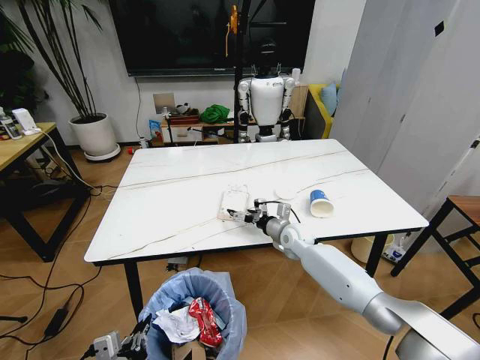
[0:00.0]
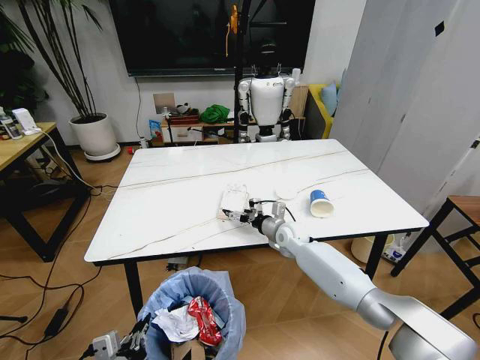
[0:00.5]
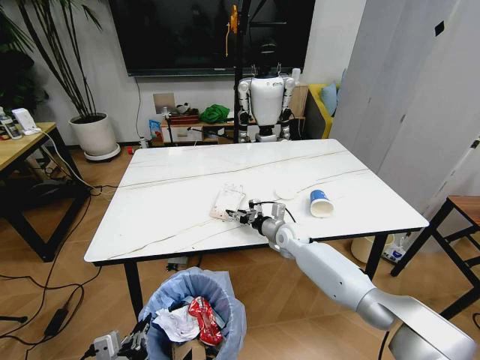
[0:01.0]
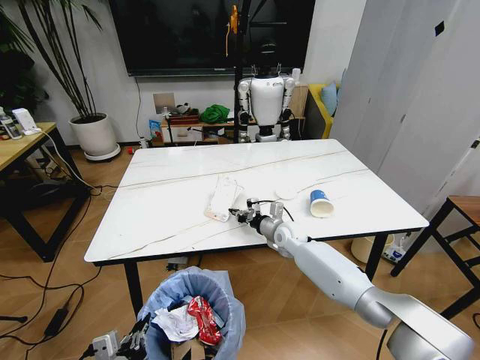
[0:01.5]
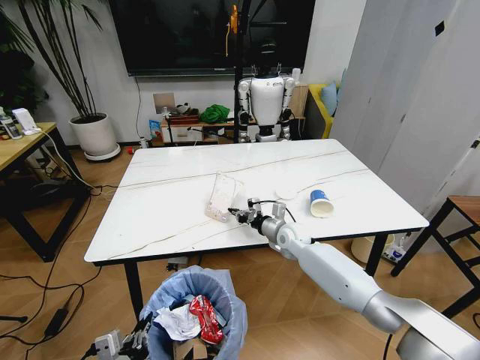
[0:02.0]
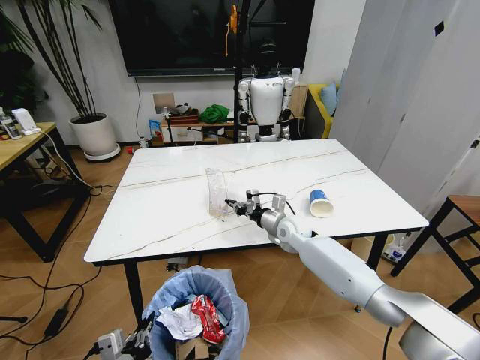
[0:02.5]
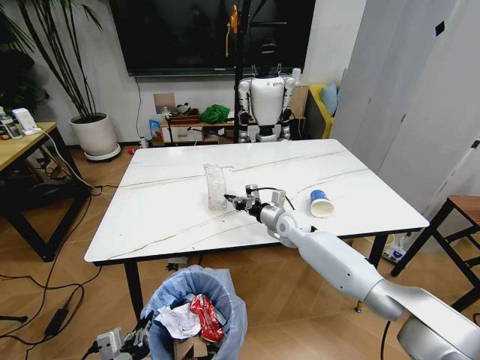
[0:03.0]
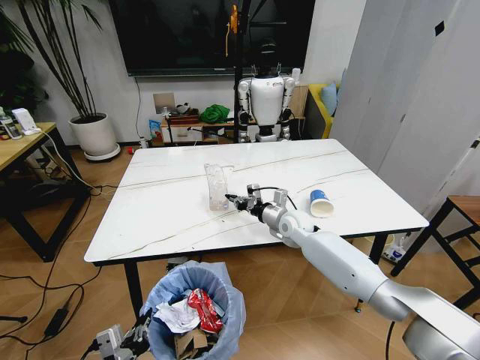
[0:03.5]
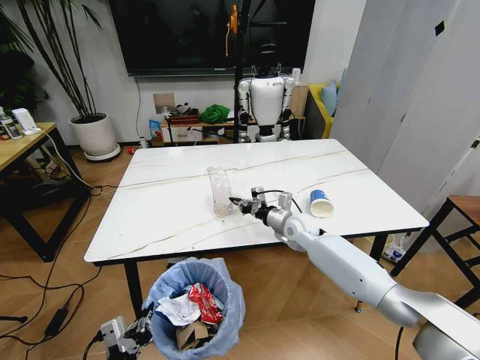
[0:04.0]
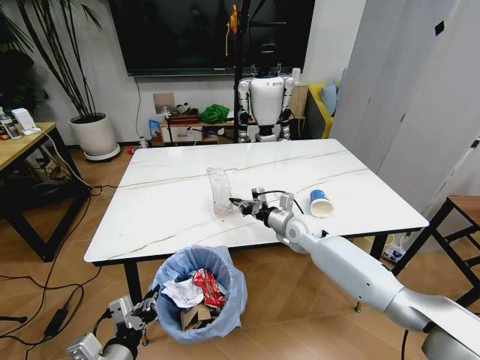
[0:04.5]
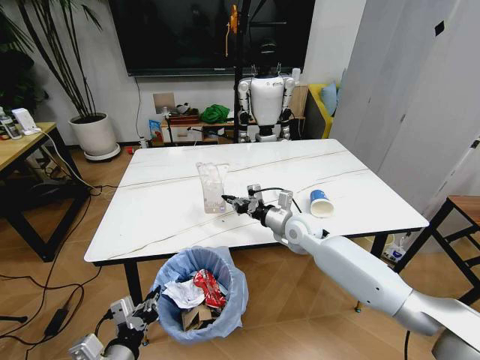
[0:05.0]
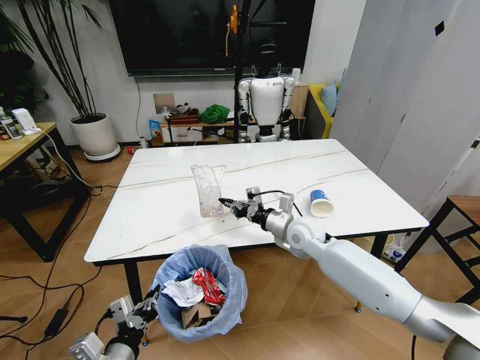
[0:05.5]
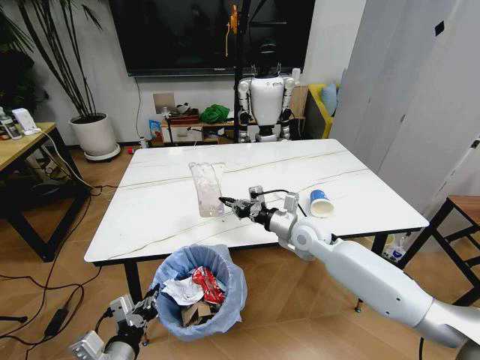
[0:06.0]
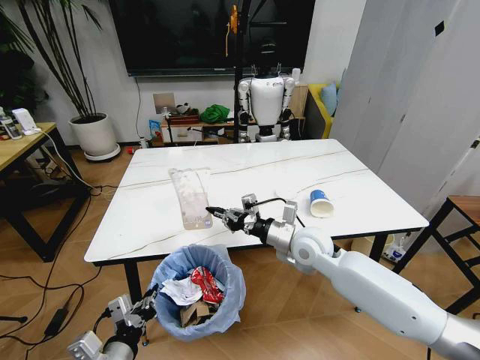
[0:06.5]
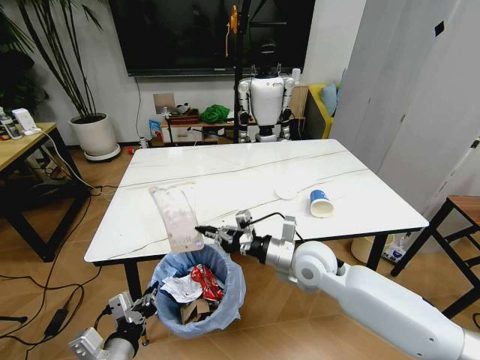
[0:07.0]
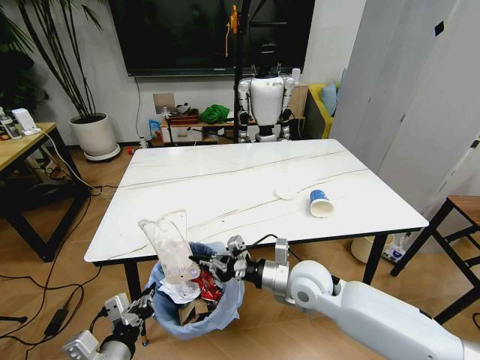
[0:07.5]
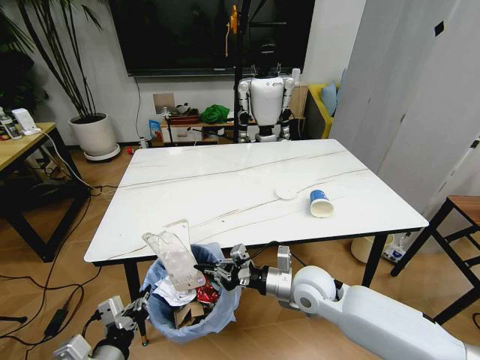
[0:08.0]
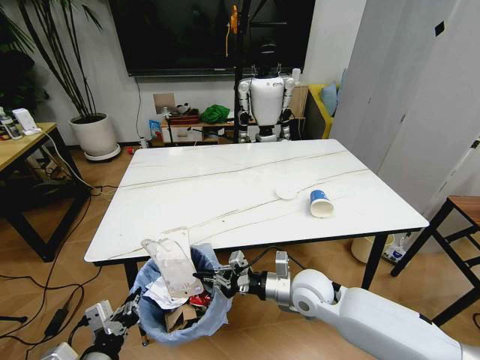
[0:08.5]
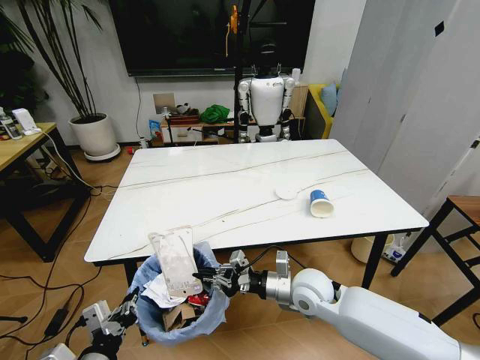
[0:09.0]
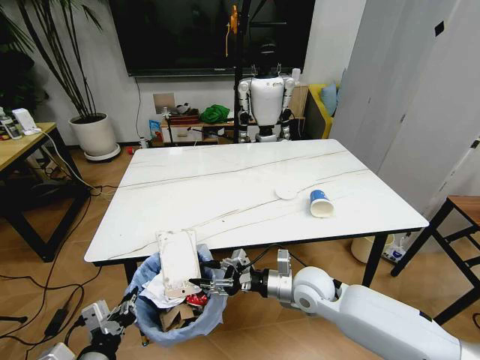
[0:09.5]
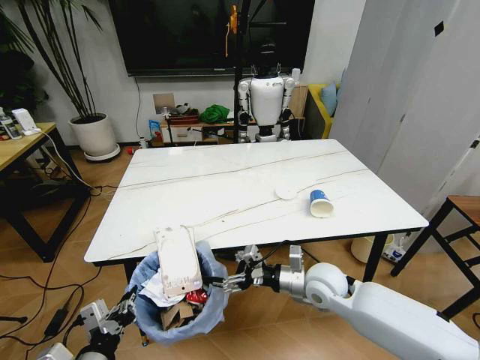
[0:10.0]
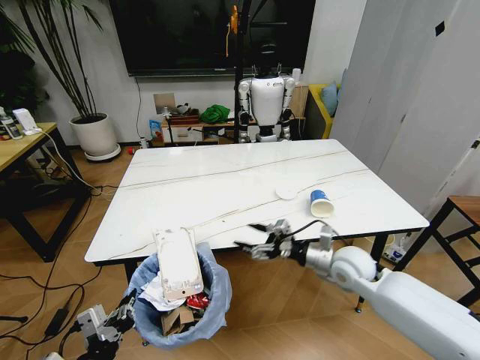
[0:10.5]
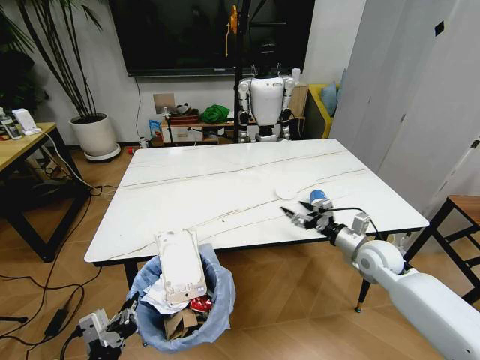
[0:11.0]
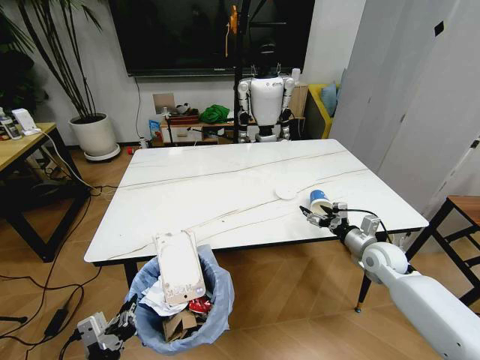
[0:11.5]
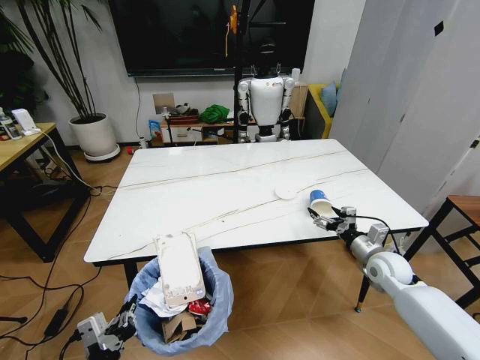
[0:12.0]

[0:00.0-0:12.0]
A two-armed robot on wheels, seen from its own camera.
Task of the whole recording: Pick up the trash bin and place the trash from the table into it.
0.0 to 2.0 s: The right gripper closes up.
2.0 to 4.0 s: The grippers stay close to where they were, moving slightly.
4.0 to 6.0 s: The right gripper is displaced backward by about 5 cm.
6.0 to 8.0 s: The right gripper heads backward, covering some 10 cm.
8.0 to 10.0 s: The right gripper opens.
10.0 to 12.0 s: The right gripper goes some 20 cm to the right.

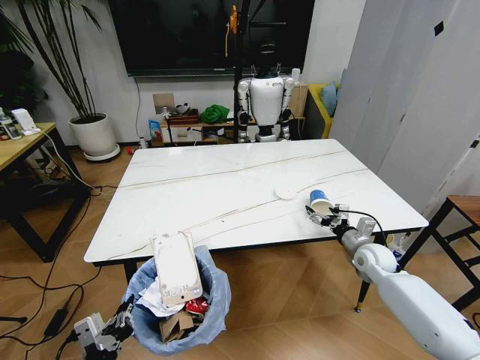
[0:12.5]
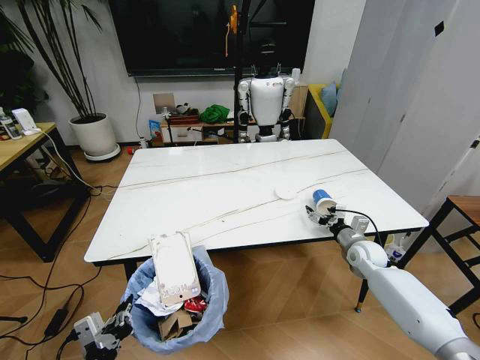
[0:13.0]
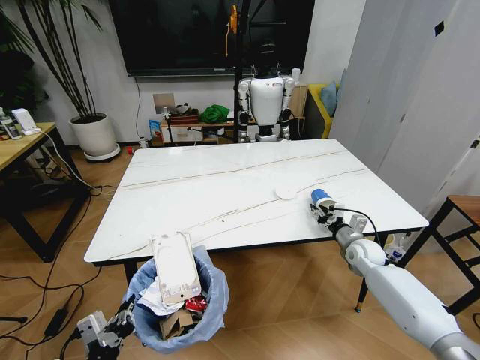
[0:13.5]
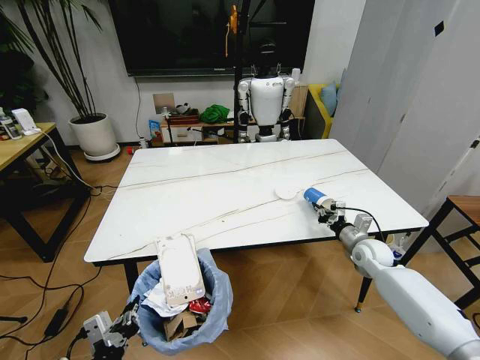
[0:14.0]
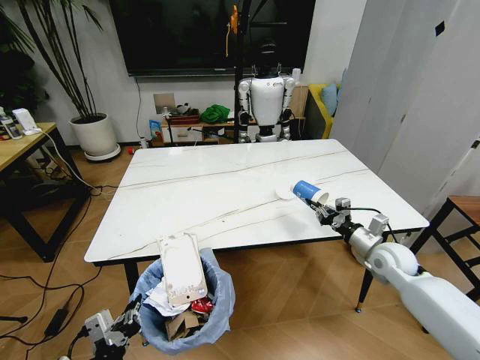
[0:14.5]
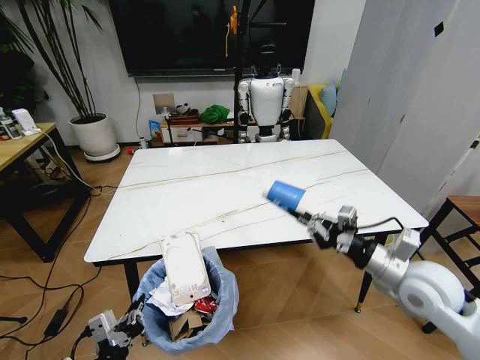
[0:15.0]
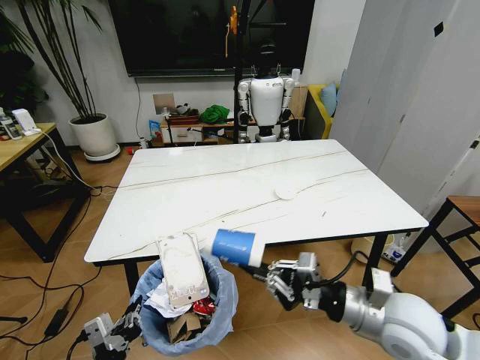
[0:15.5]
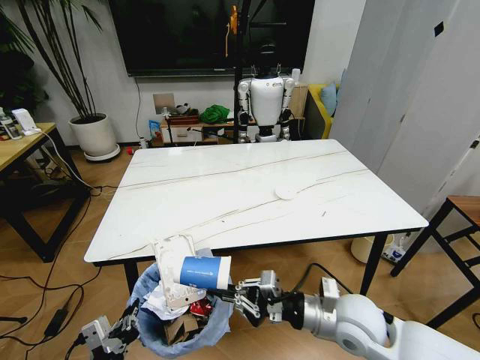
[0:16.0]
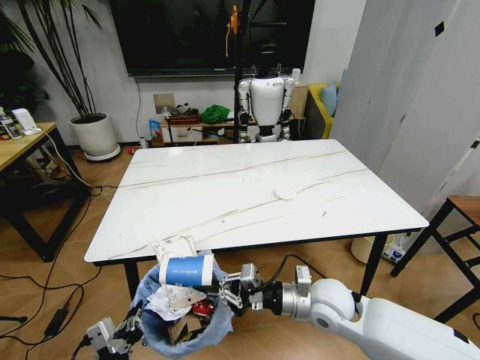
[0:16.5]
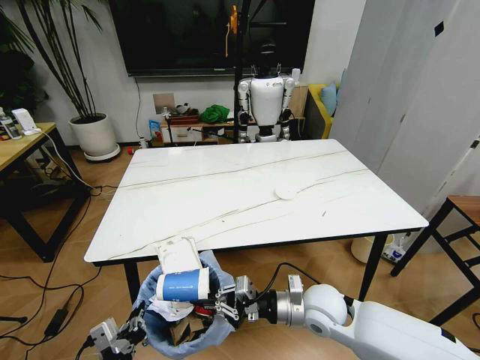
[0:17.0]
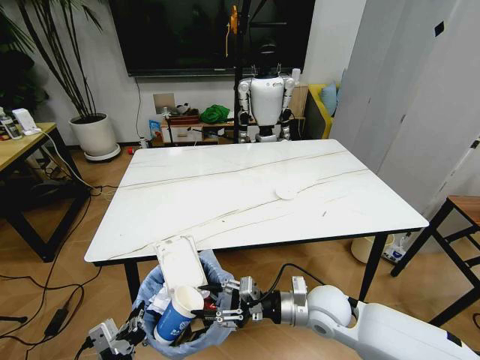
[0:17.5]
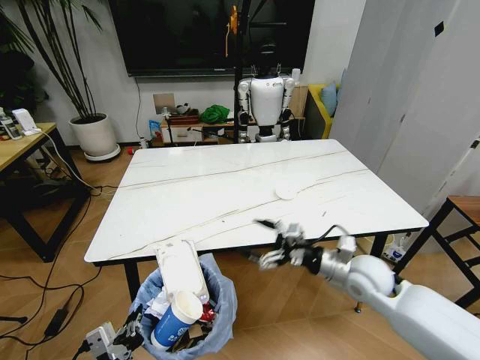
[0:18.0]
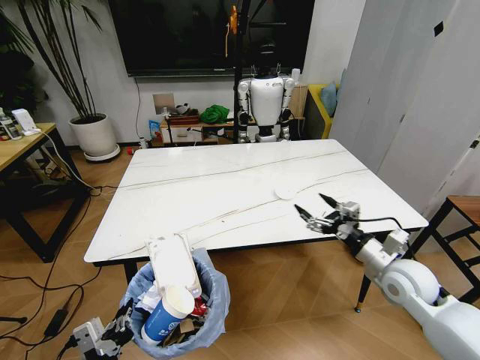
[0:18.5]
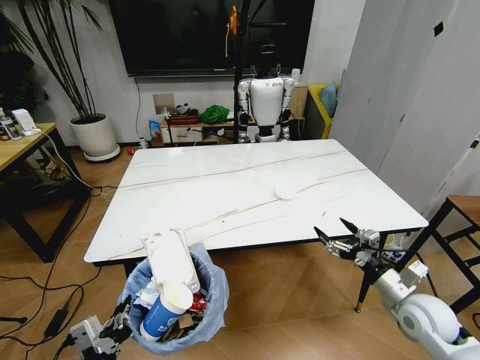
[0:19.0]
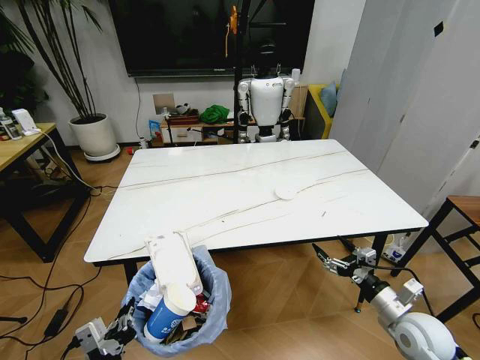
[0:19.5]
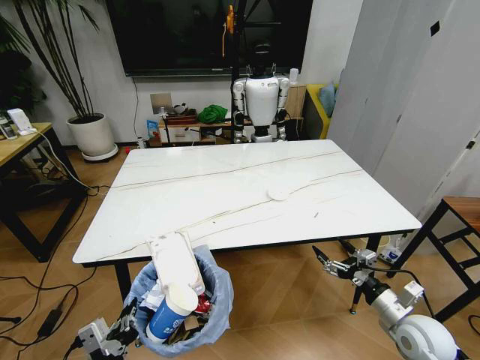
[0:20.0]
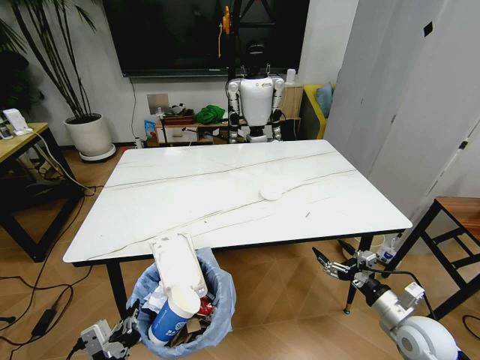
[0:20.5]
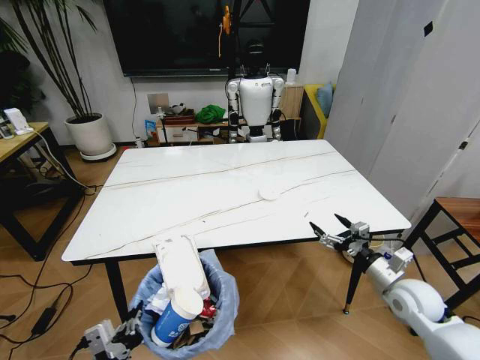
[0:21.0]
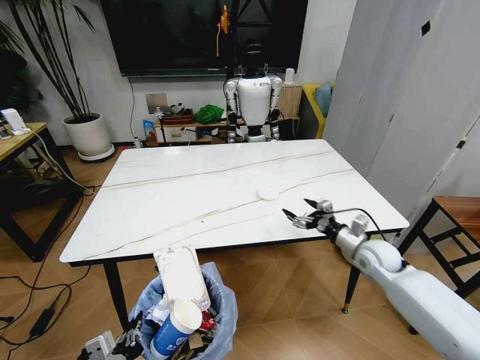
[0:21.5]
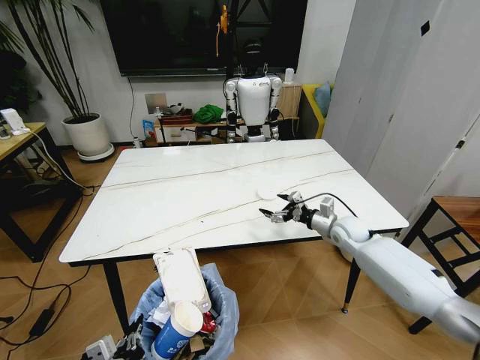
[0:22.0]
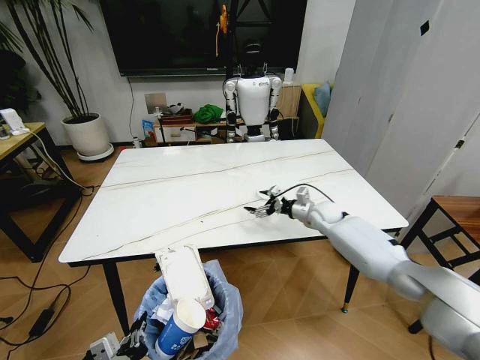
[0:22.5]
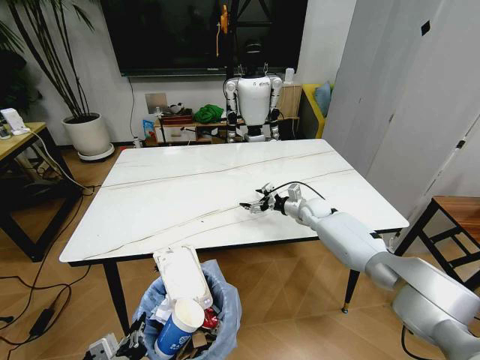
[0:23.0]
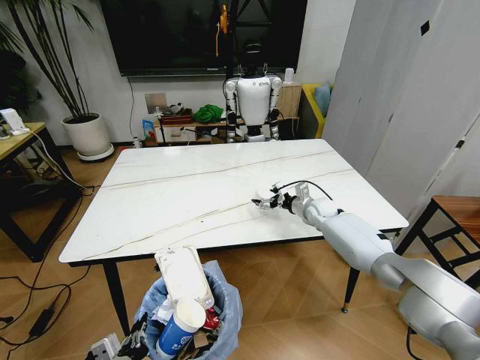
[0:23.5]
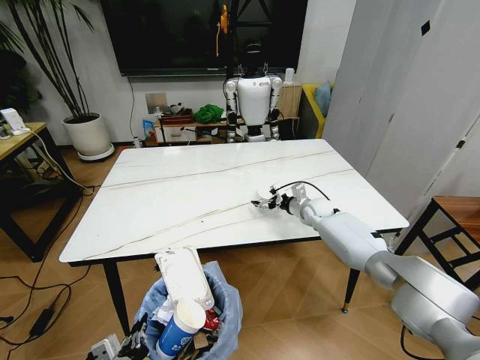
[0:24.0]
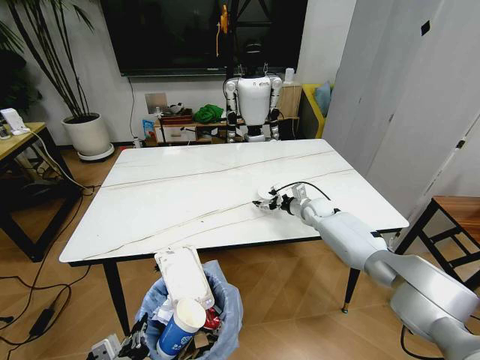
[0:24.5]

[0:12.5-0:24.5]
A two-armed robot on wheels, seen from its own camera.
Task of the whole recording: Pick up the trash bin and place the trash from the table into it.
12.5 to 14.5 s: The right gripper travels upward by about 5 cm, and closes.
14.5 to 16.5 s: The right gripper heads to the left and backward, covering roughly 20 cm.
16.5 to 18.5 s: The right gripper travels to the right by some 15 cm, and opens its fingers.
18.5 to 20.5 s: The right gripper shifts roughly 10 cm downward and backward.
20.5 to 22.5 s: The right gripper goes about 30 cm forward.
22.5 to 24.5 s: There are only small adjustments of the grippers.

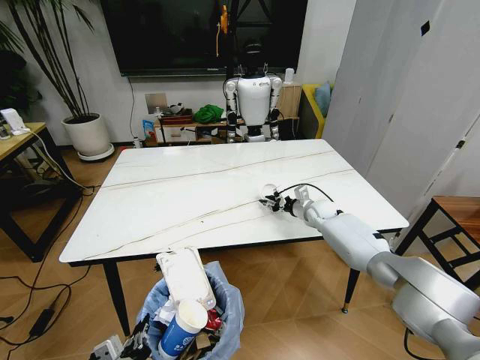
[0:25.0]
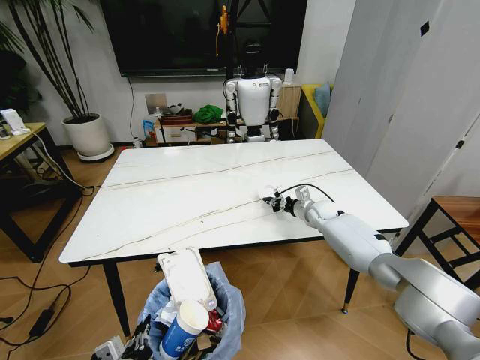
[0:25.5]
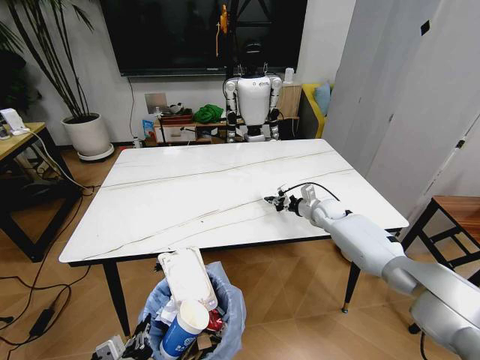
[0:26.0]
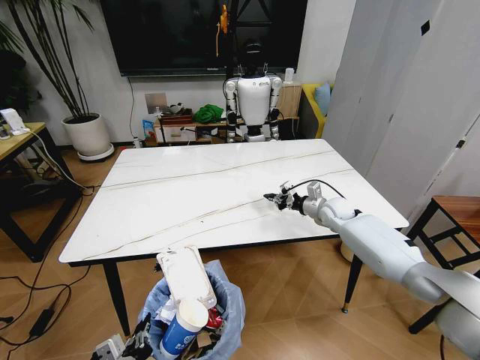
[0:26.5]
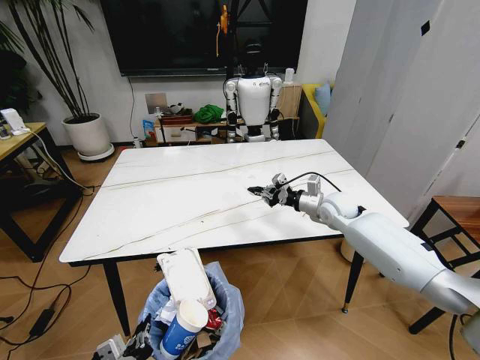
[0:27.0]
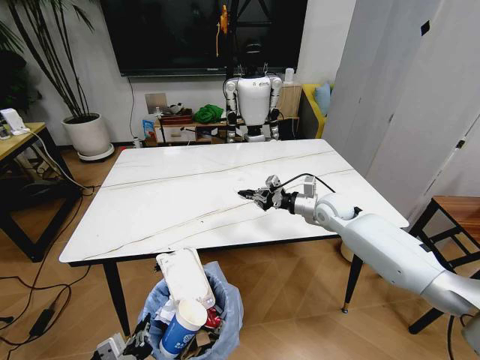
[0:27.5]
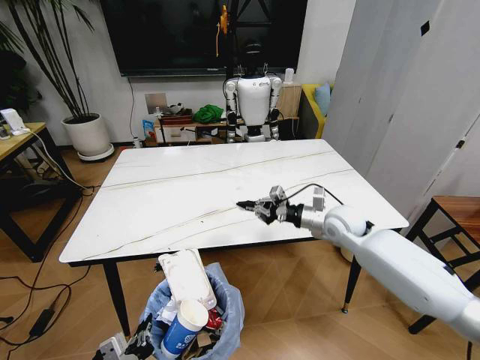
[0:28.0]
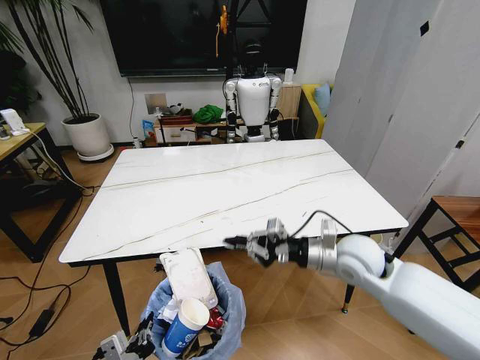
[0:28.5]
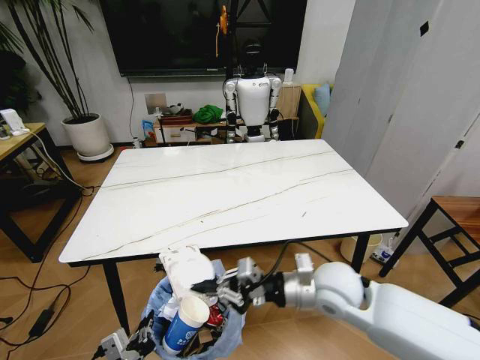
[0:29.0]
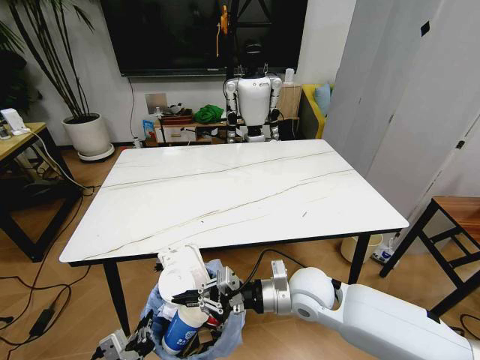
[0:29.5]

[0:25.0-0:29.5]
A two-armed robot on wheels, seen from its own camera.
Task of the whole recording: Pick up the trash bin and place the trash from the table into it.
25.0 to 27.0 s: The right gripper shifts roughly 10 cm upward and backward.
27.0 to 29.5 s: The right gripper shifts approximately 25 cm backward and to the left.
